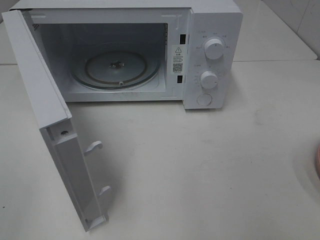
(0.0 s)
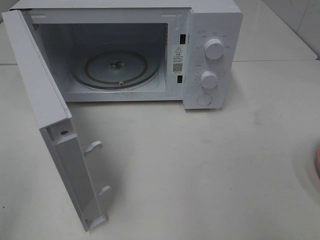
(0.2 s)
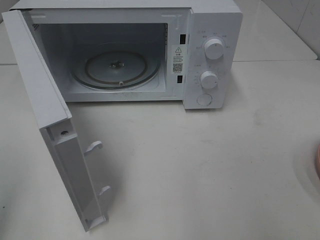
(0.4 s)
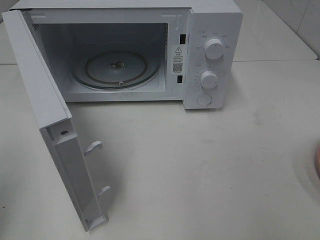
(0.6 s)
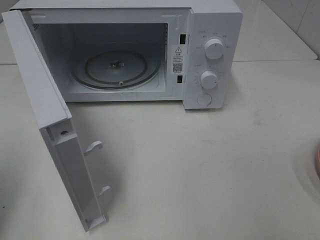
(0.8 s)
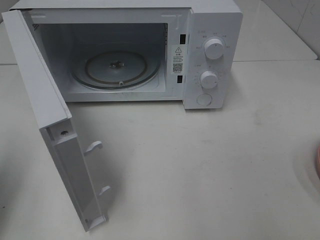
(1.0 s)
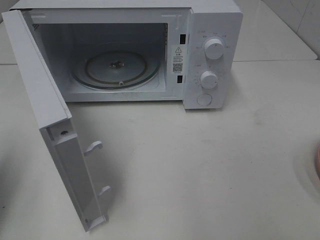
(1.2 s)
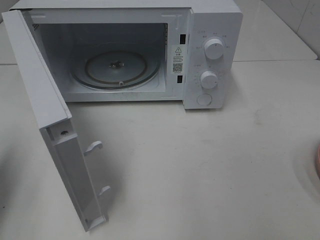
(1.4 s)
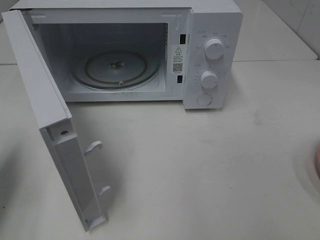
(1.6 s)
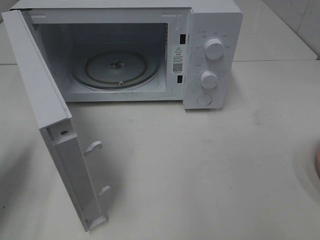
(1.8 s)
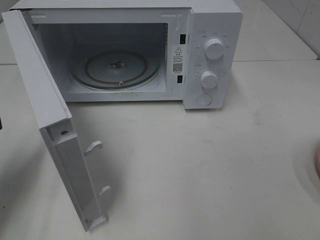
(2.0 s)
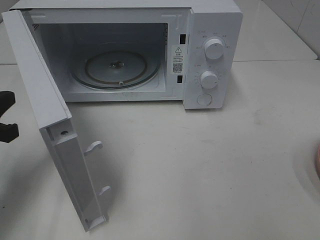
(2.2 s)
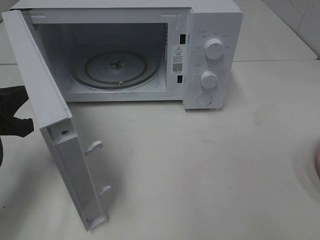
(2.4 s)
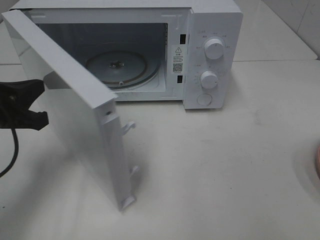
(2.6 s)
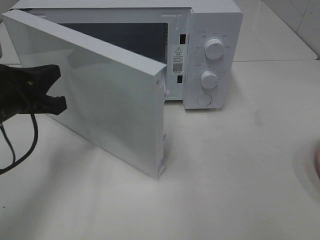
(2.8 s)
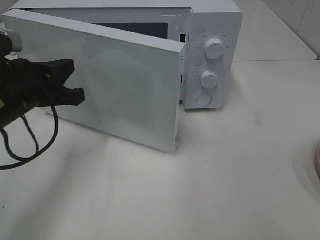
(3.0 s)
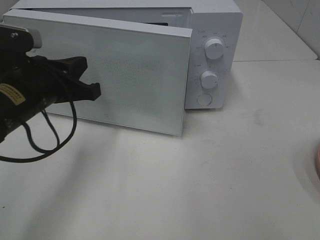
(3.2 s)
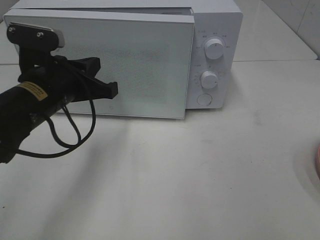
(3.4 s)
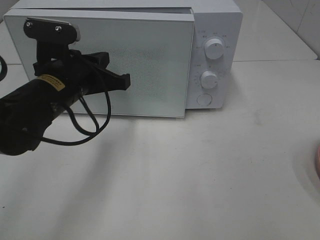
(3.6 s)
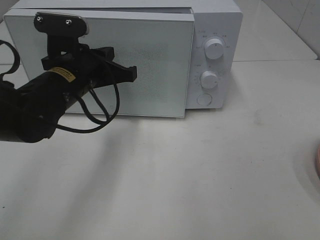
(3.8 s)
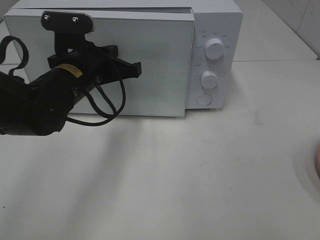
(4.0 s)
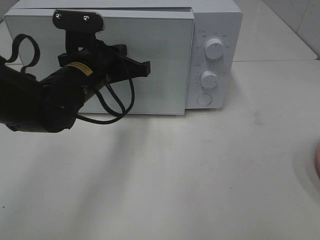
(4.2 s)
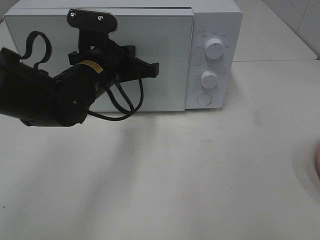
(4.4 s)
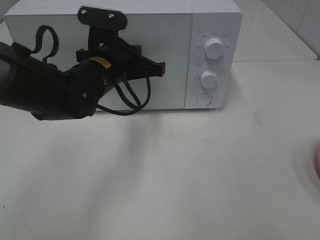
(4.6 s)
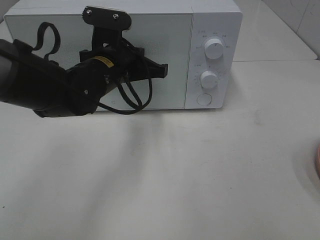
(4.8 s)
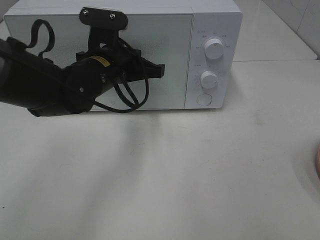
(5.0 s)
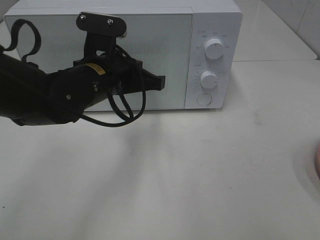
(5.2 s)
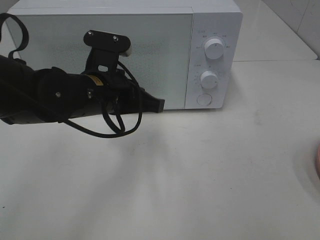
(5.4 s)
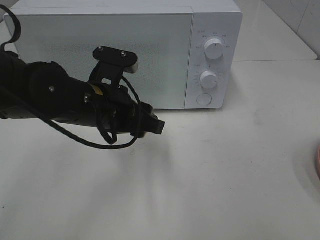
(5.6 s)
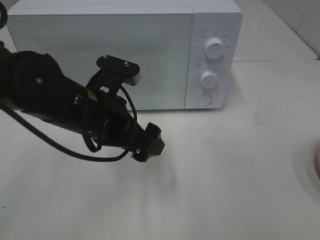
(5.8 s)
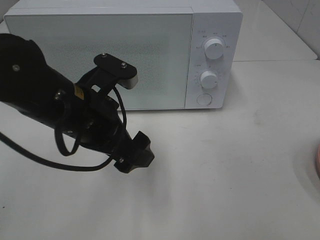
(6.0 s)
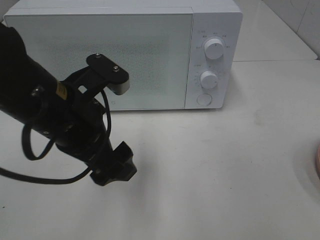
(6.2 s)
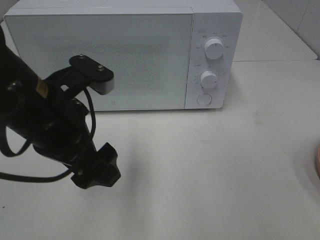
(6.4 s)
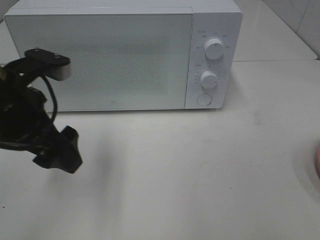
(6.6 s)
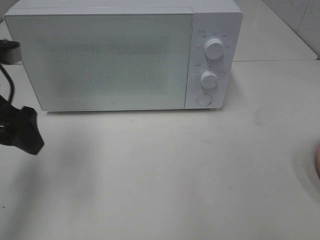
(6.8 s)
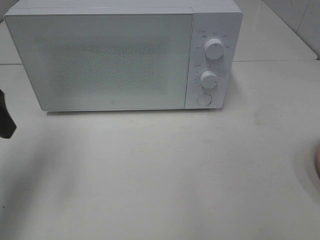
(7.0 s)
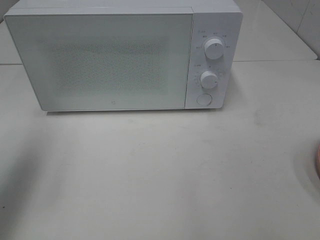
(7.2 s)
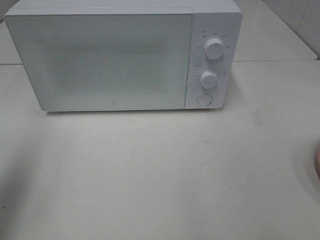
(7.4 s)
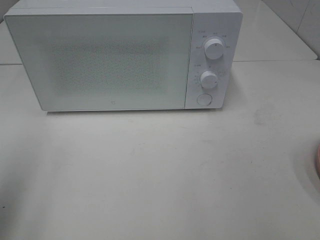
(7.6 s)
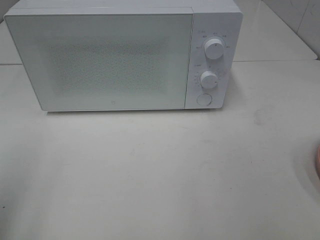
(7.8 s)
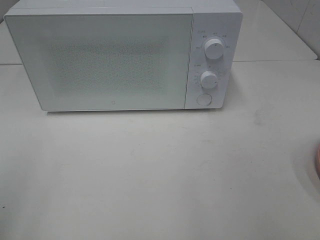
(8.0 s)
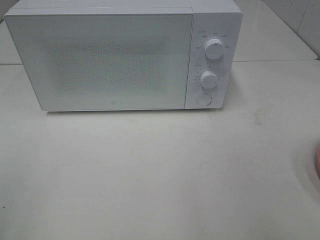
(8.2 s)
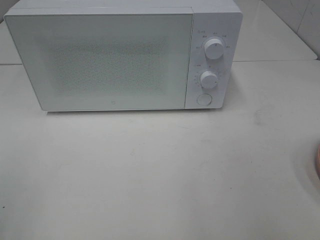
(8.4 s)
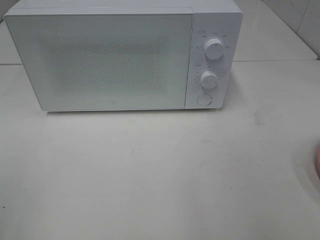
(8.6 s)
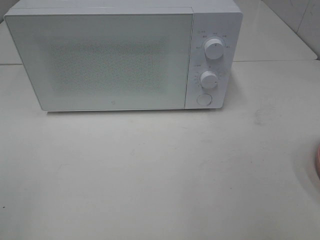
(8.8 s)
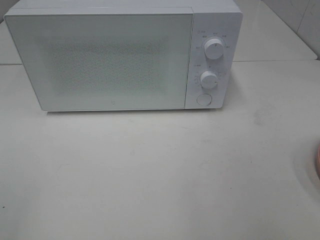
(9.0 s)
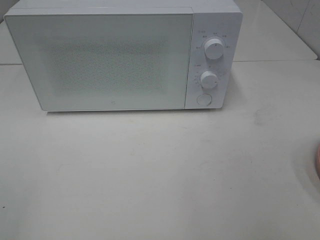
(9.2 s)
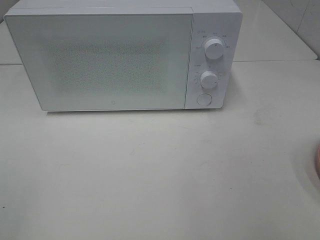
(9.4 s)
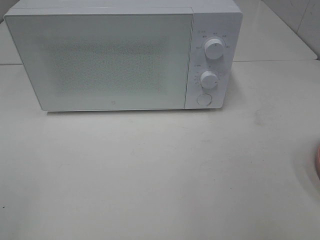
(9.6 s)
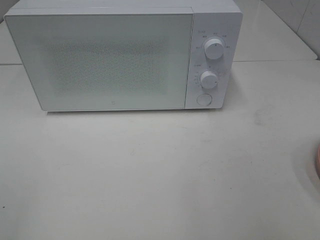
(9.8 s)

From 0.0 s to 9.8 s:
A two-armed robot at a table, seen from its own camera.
Task of the whole recording: Heat the burger.
Step, from 0.0 s to 5.4 s: Left hand: close the microwave door.
From 0.0 s to 1.4 s: The left gripper travels forward by some 20 cm, and closes its fingers.
From 1.4 s to 2.8 s: The left gripper shifts about 15 cm to the right and forward.
From 2.8 s to 4.2 s: The left gripper goes some 15 cm to the right and forward.
From 4.2 s to 5.6 s: The left gripper heads backward, covering roughly 5 cm, and opens its fingers.
From 5.6 s to 7.0 s: The left gripper goes approximately 20 cm to the left and upward, and opens its fingers.
From 7.0 s to 8.4 s: The left gripper travels backward by roughly 20 cm.
